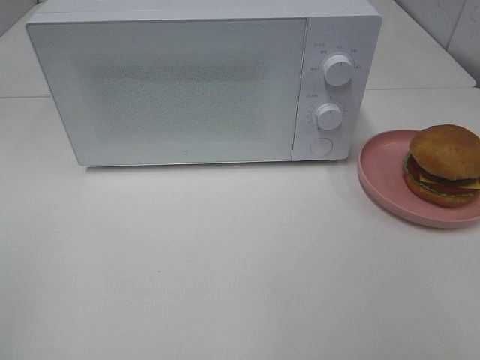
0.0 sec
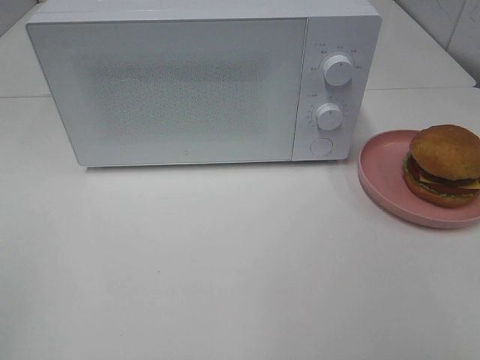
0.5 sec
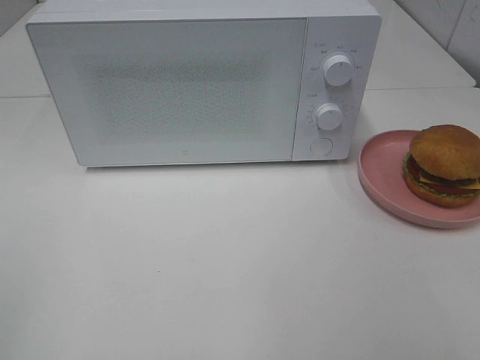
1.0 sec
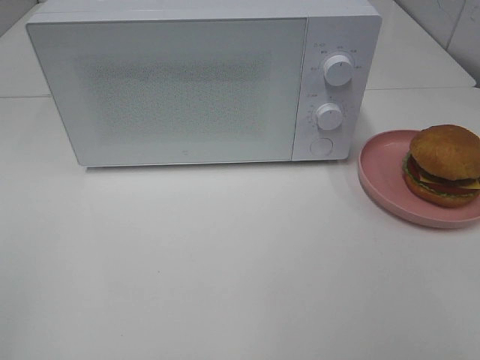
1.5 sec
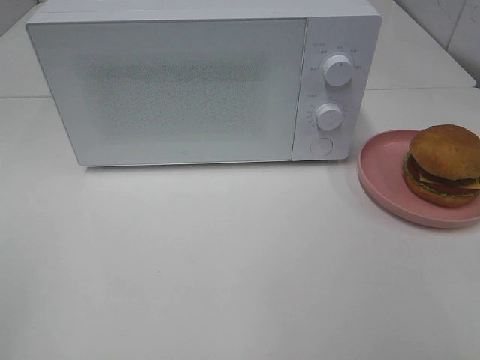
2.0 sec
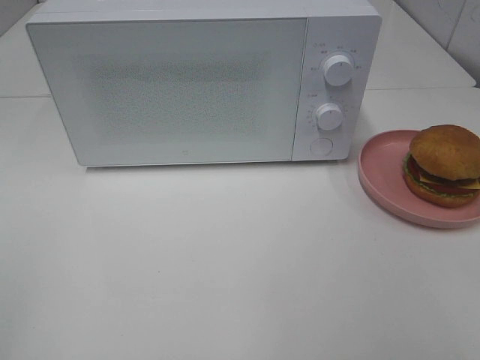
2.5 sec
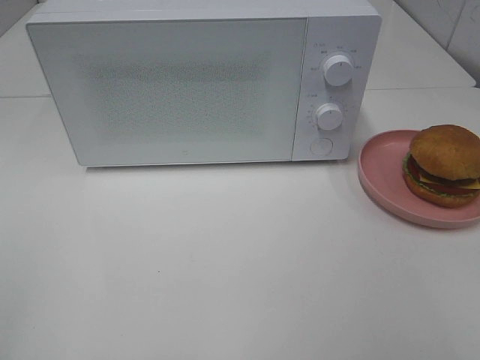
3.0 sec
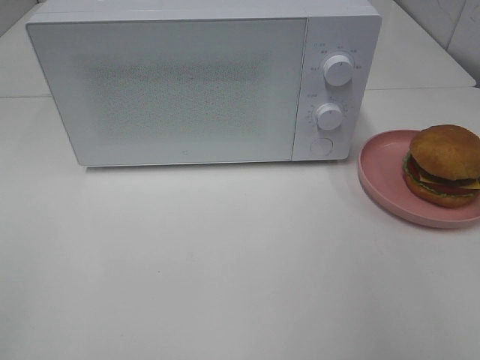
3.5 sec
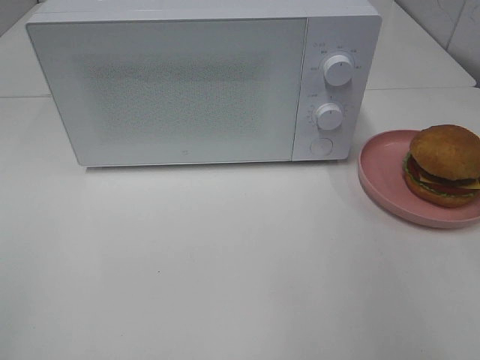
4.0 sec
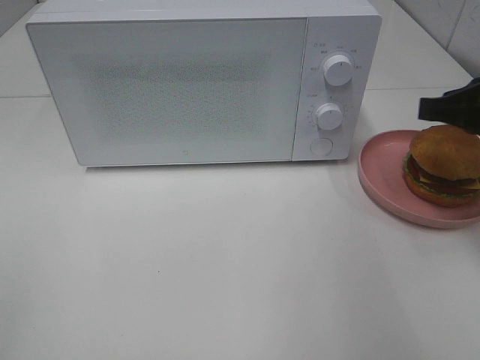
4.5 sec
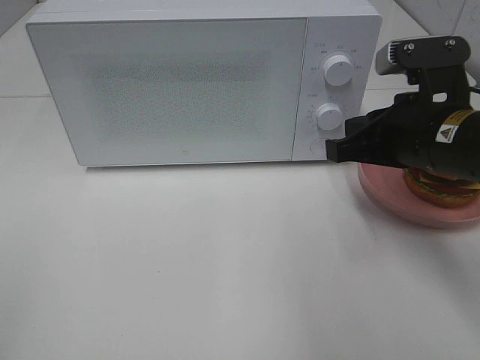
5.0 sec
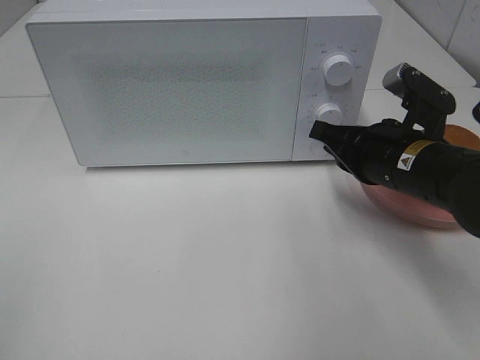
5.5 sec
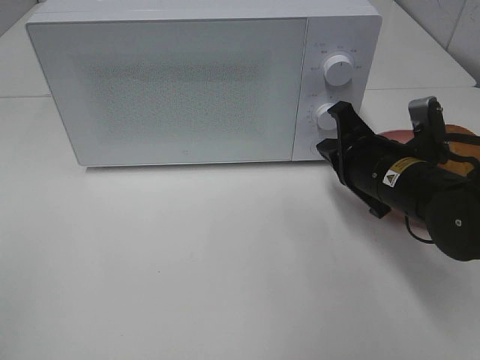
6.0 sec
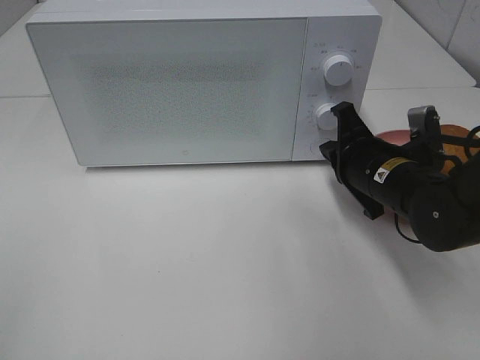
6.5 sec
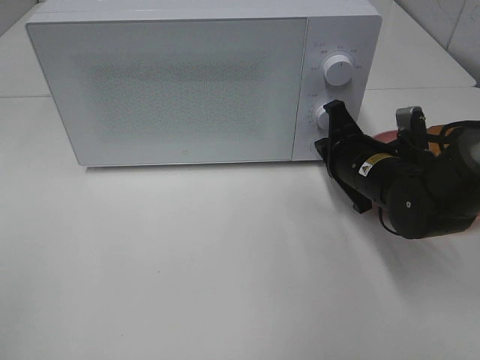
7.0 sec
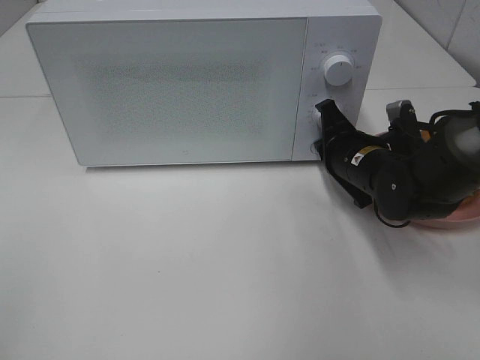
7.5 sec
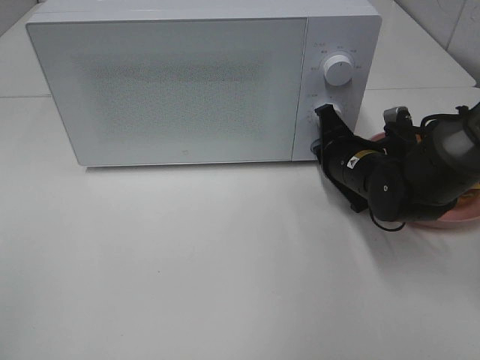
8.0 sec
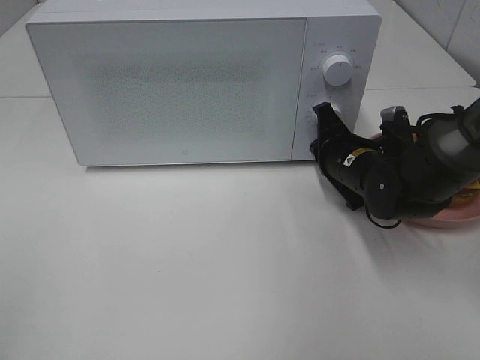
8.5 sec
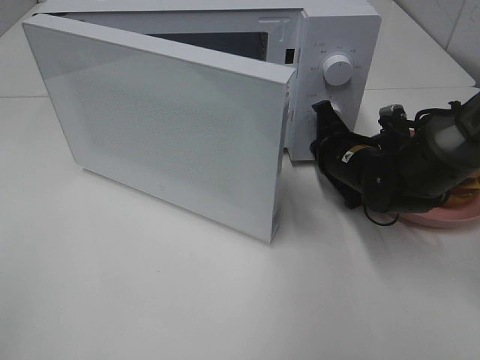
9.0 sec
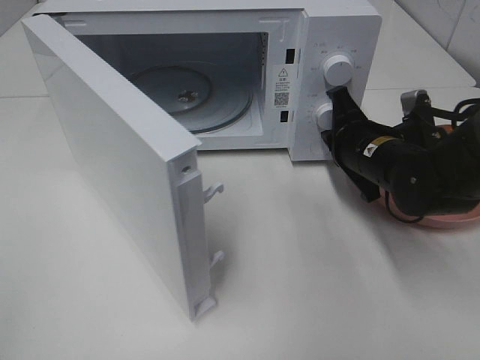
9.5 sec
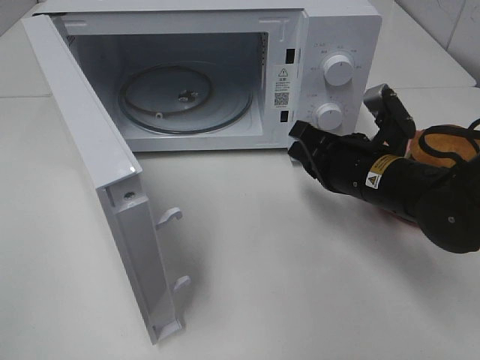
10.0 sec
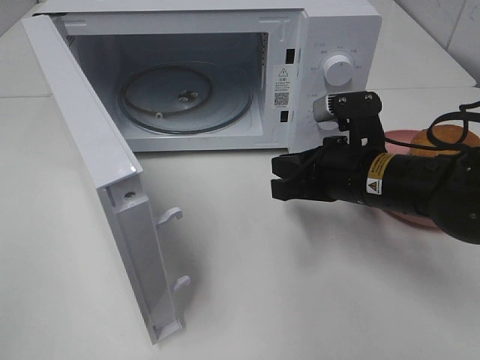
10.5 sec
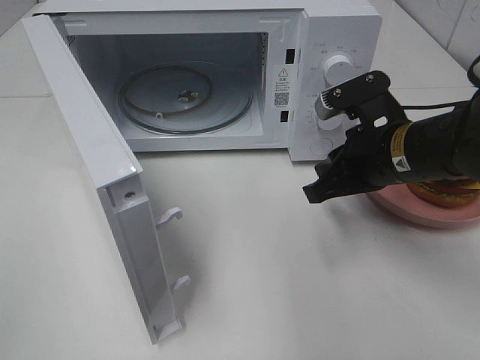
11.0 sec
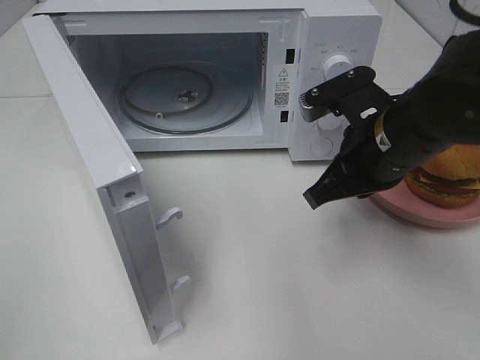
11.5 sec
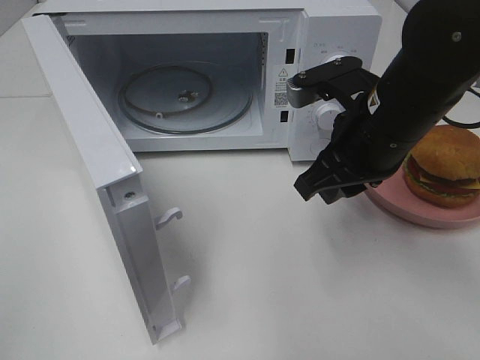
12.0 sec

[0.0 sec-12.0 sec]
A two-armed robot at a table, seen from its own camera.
Task of the whole recording: Heat the burger.
Step, 0.0 sec to 9.0 sec: Right hand: press the switch.
0.0 sec to 2.0 sec: Both grippers stay about where they are.
4.0 sec to 6.0 sec: The right gripper goes some 20 cm downward, to the left and forward.
6.0 sec to 8.0 sec: The right gripper moves forward, some 5 cm.
8.0 sec to 10.0 sec: The right gripper shifts roughly 5 cm backward.
10.0 sec to 12.0 sec: The right gripper goes approximately 10 cm upward, and opens.

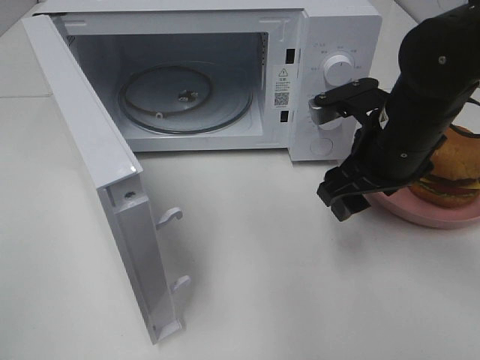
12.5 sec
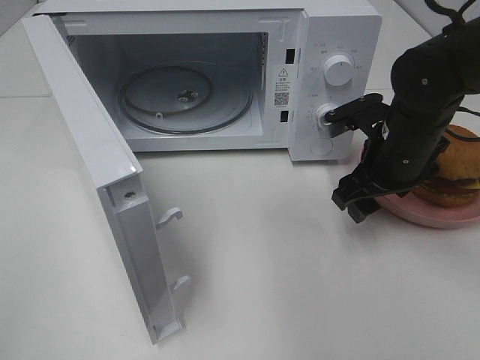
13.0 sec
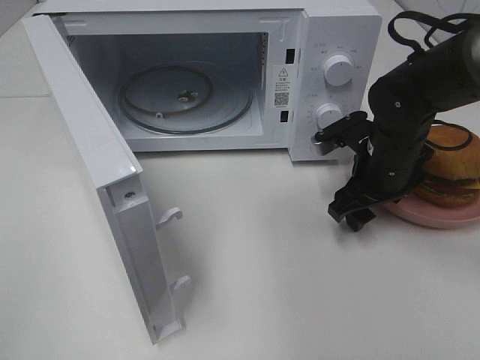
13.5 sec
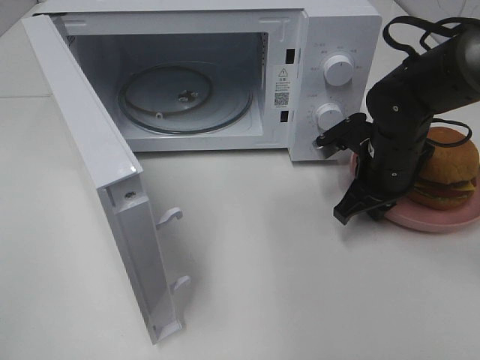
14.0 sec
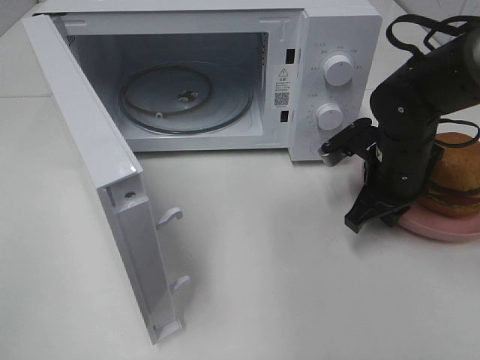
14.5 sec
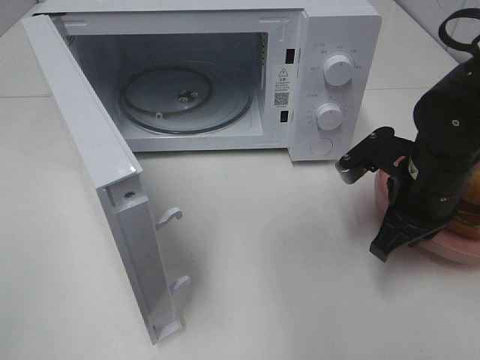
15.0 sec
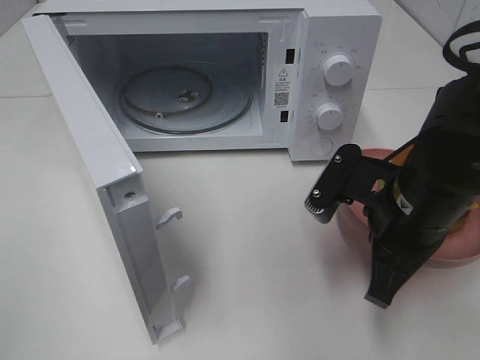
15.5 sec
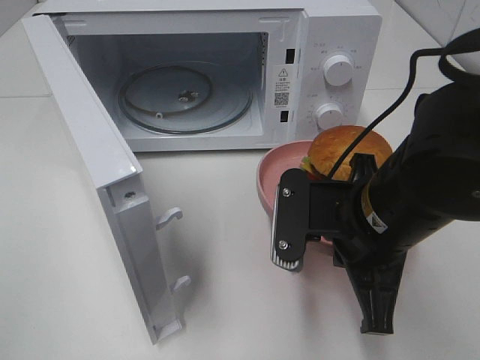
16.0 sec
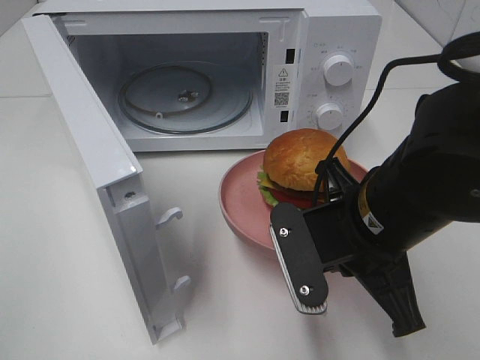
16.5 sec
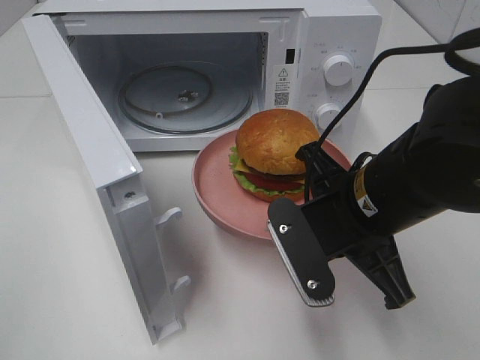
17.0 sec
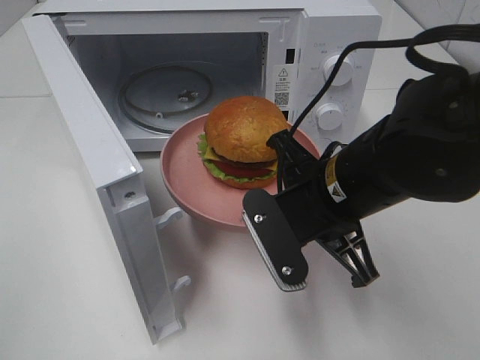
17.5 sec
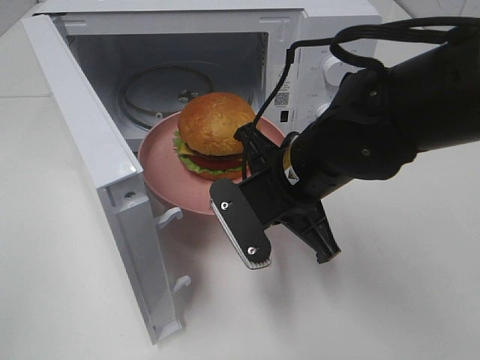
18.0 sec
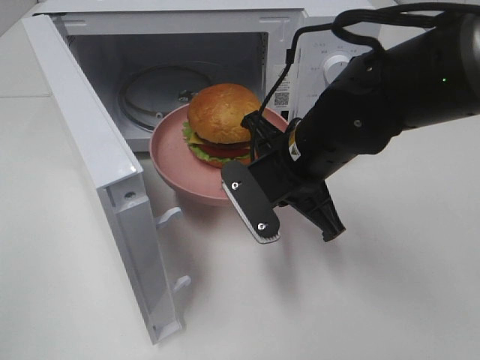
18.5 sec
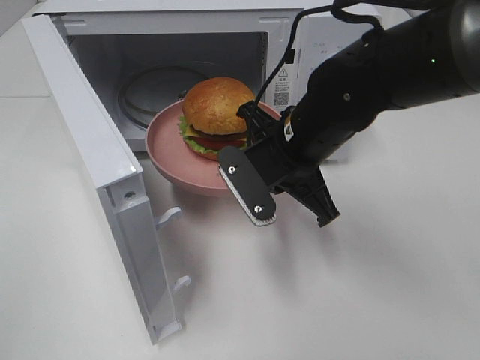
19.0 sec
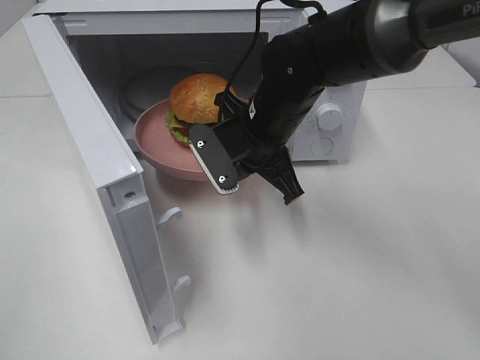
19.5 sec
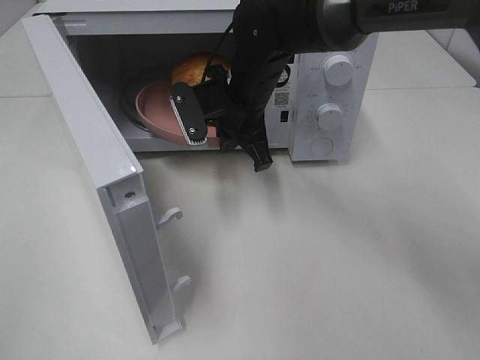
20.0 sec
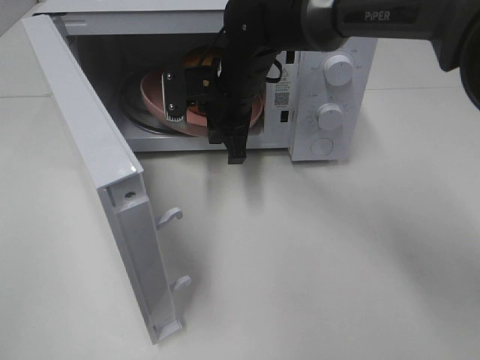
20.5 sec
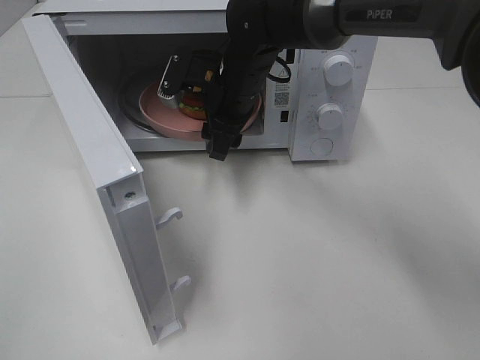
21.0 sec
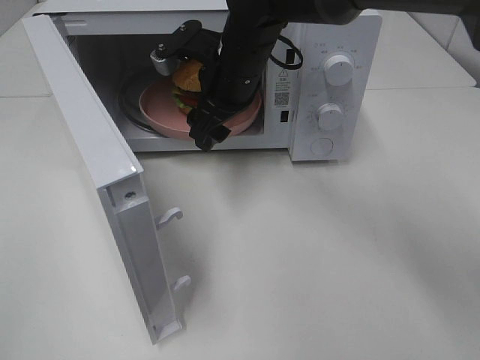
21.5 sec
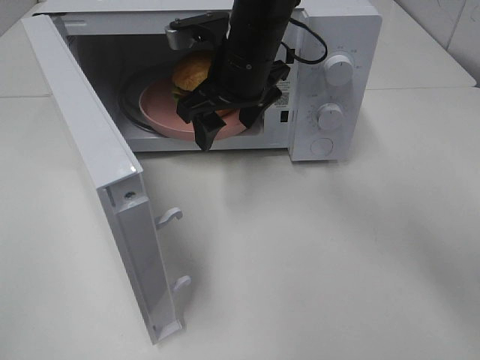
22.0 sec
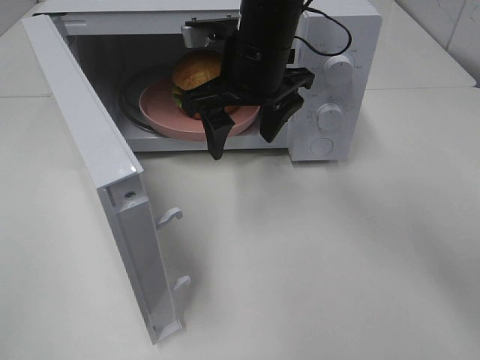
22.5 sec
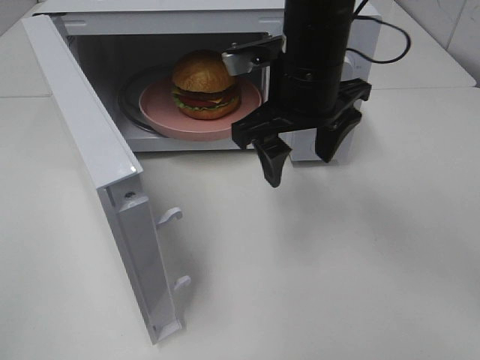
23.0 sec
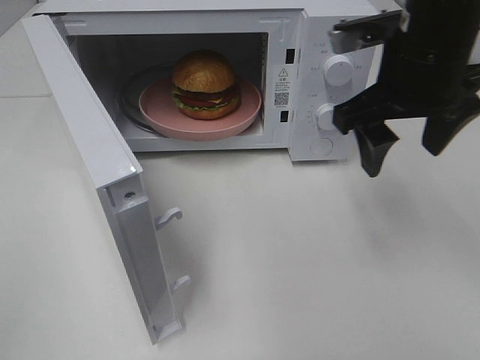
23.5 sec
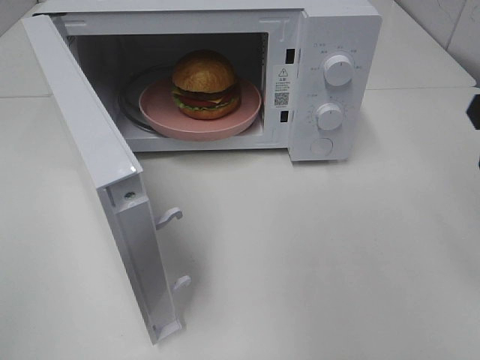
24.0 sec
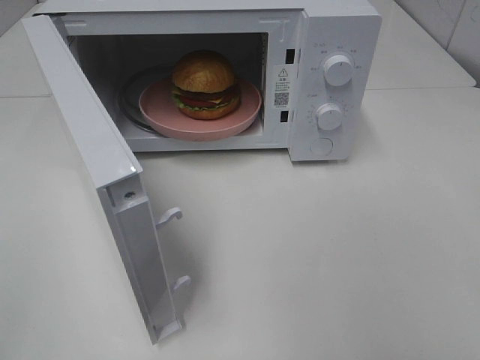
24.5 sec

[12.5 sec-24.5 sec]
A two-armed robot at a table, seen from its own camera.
Task of the whole recording: Heat the burger.
Step, 14.0 sec to 20.5 sec: Right hand: place the plate in the microwave.
12.5 sec to 14.5 sec: The right gripper travels downward by some 5 cm, and closes its fingers.
14.5 sec to 16.5 sec: The right gripper heads backward, to the left and upward, covering about 15 cm.
16.5 sec to 18.5 sec: The right gripper shifts roughly 10 cm forward.
18.5 sec to 20.5 sec: The right gripper goes approximately 15 cm forward and to the left.
20.5 sec to 22.5 sec: The right gripper shifts about 10 cm upward and backward, and opens up.
22.5 sec to 24.5 sec: The right gripper goes some 35 cm to the right and backward.

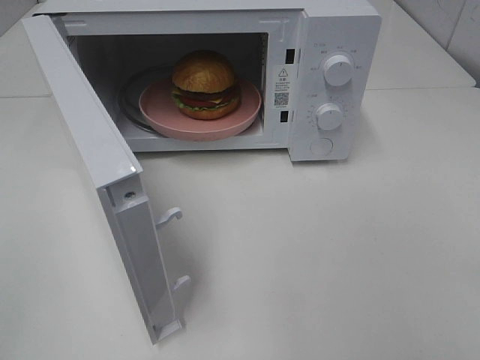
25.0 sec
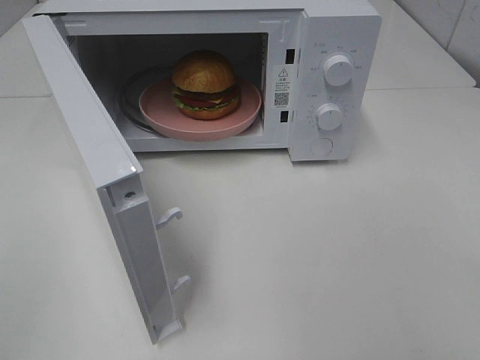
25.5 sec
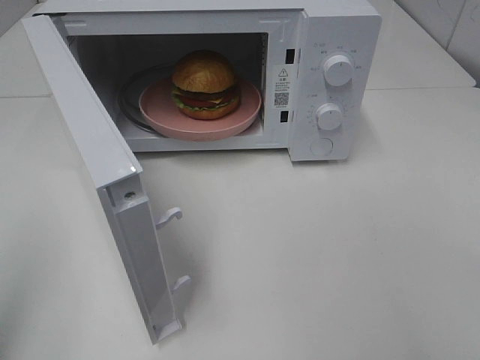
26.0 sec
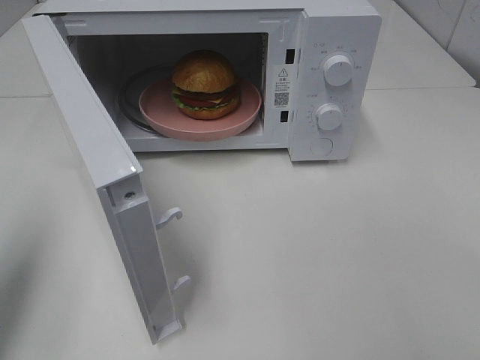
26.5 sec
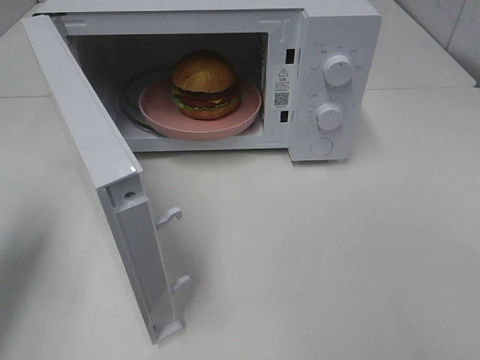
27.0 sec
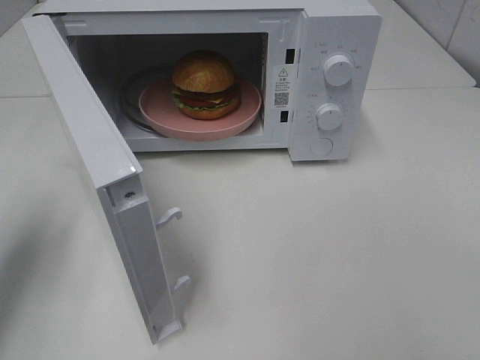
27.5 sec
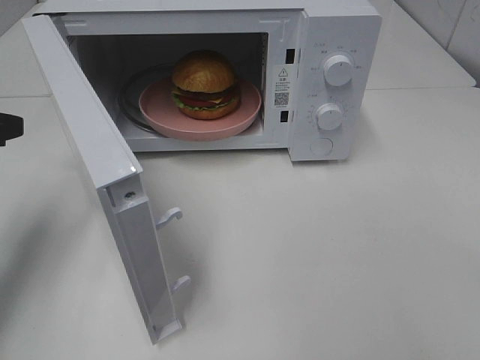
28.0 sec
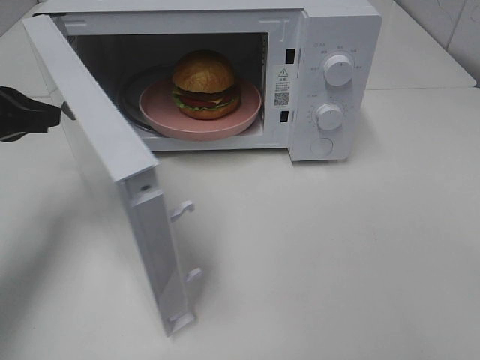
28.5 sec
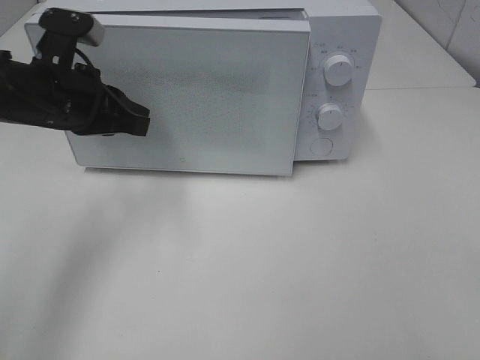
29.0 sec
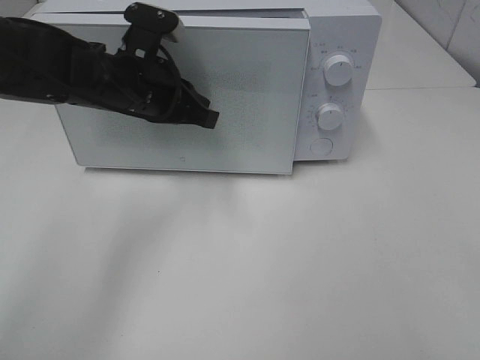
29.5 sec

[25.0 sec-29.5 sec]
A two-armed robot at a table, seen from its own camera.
Task of the whole recording: Heat the burger.
25.0 sec to 27.0 sec: The left gripper travels forward by approximately 20 cm.
27.0 sec to 29.5 sec: The left gripper moves to the right and forward, roughly 25 cm.
